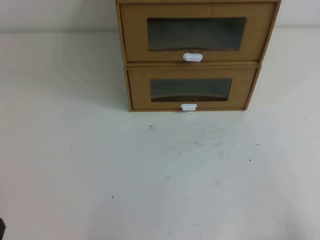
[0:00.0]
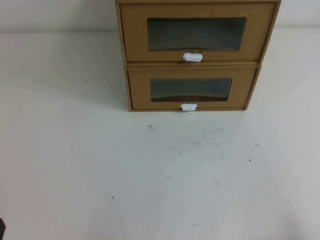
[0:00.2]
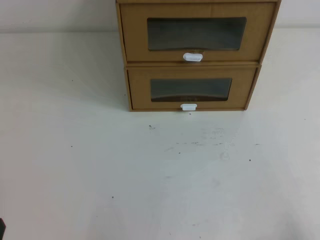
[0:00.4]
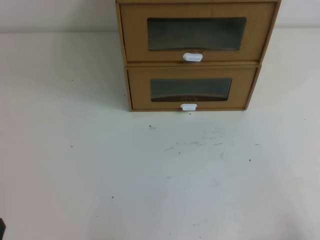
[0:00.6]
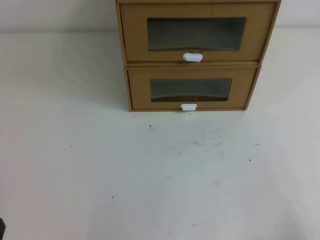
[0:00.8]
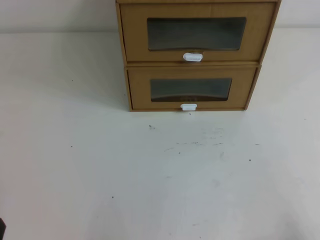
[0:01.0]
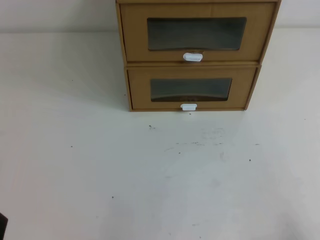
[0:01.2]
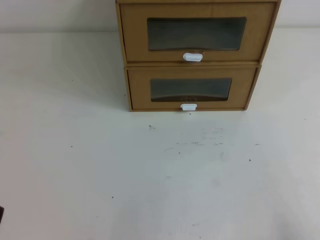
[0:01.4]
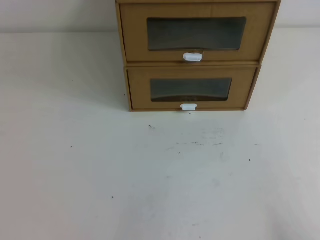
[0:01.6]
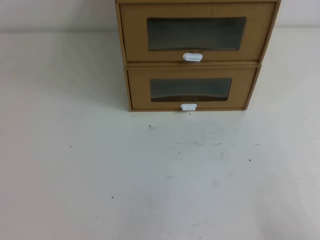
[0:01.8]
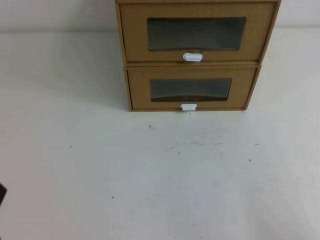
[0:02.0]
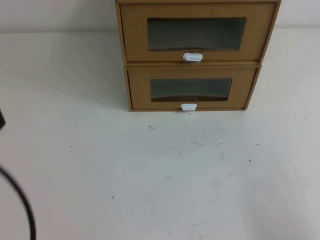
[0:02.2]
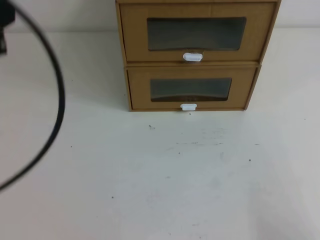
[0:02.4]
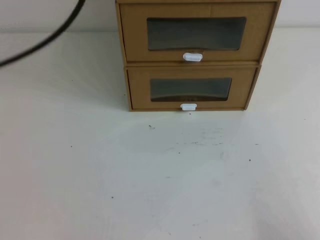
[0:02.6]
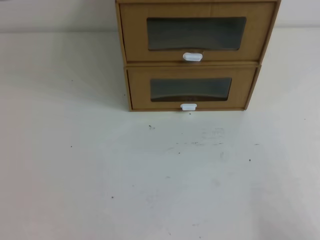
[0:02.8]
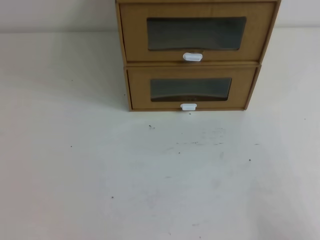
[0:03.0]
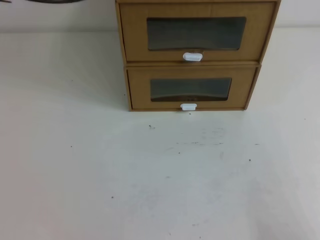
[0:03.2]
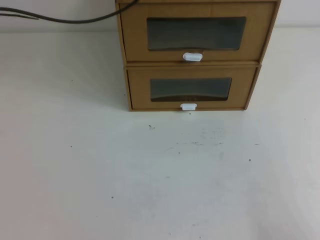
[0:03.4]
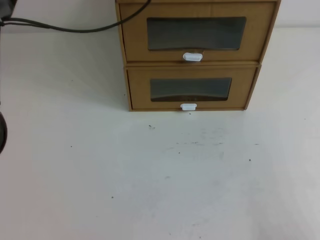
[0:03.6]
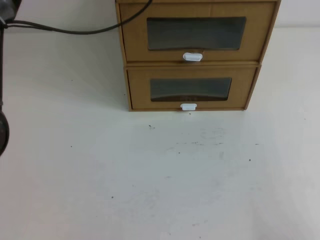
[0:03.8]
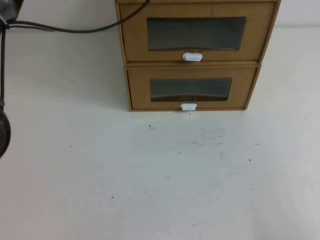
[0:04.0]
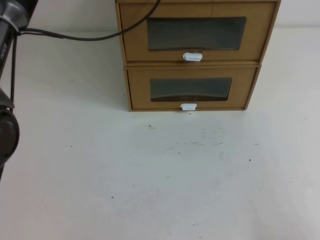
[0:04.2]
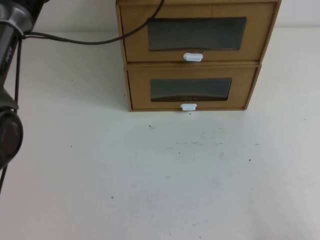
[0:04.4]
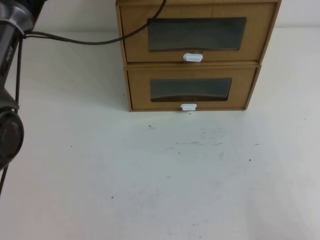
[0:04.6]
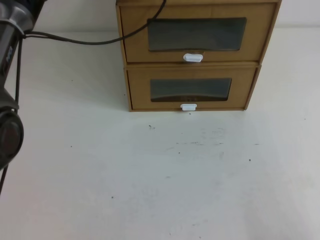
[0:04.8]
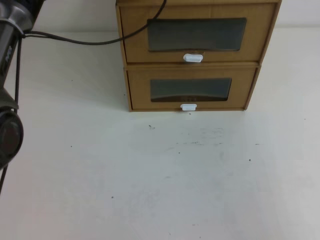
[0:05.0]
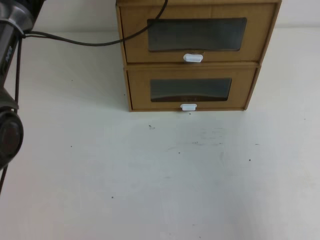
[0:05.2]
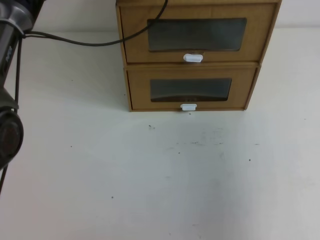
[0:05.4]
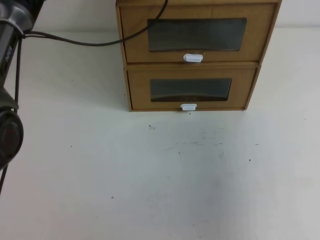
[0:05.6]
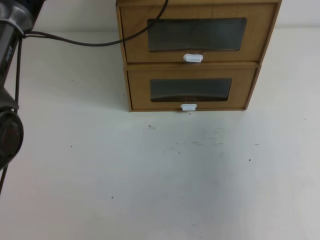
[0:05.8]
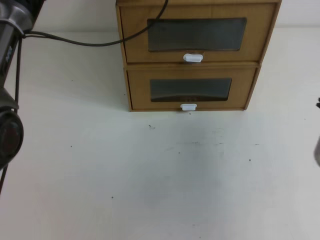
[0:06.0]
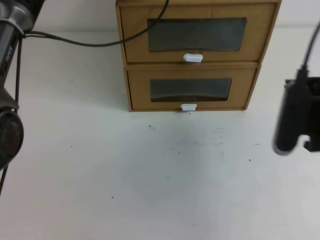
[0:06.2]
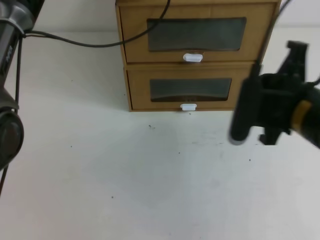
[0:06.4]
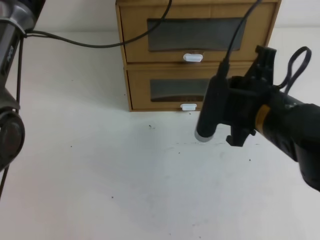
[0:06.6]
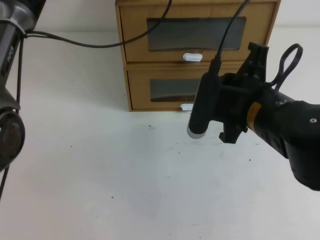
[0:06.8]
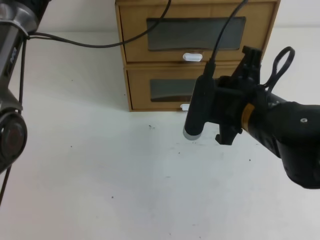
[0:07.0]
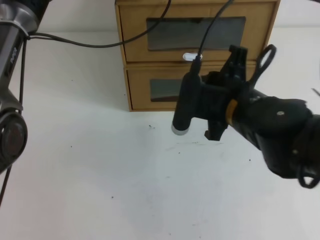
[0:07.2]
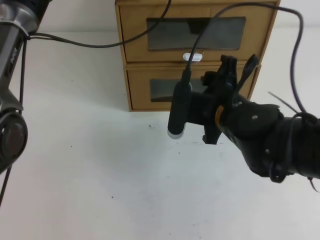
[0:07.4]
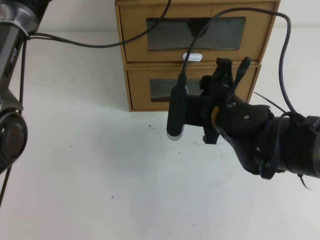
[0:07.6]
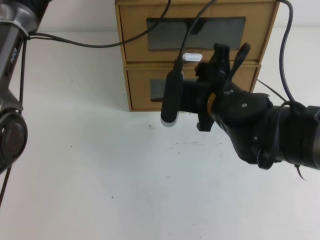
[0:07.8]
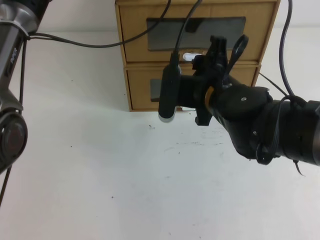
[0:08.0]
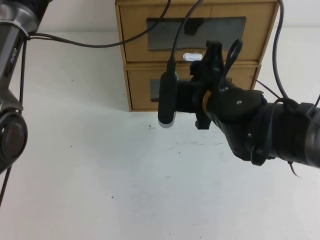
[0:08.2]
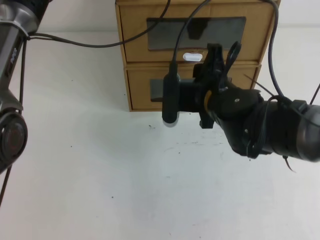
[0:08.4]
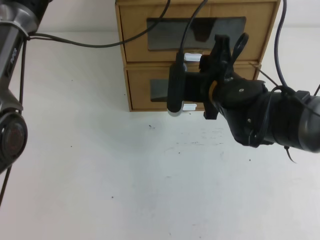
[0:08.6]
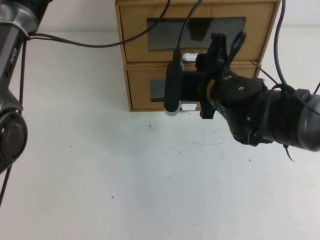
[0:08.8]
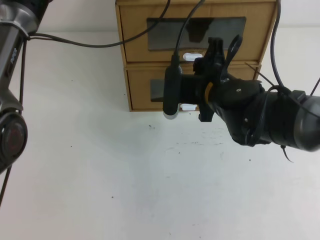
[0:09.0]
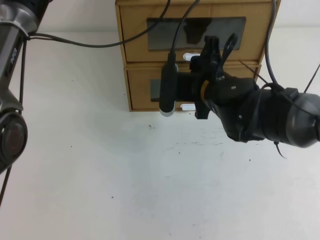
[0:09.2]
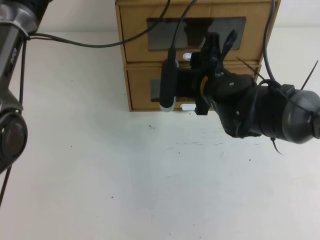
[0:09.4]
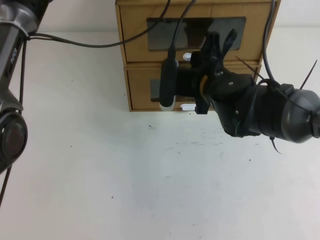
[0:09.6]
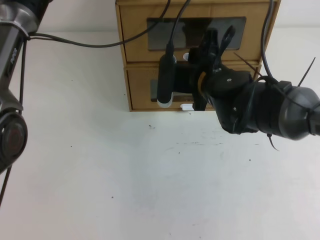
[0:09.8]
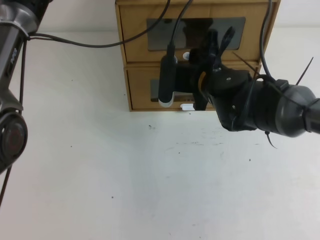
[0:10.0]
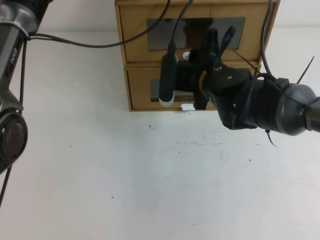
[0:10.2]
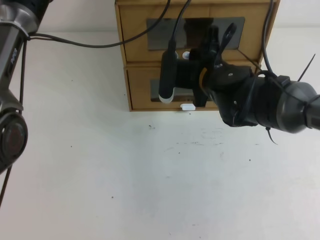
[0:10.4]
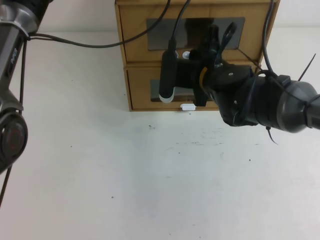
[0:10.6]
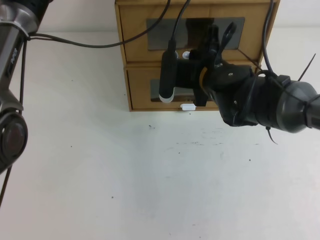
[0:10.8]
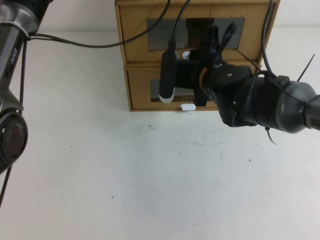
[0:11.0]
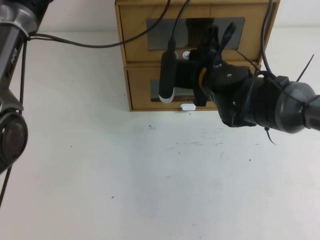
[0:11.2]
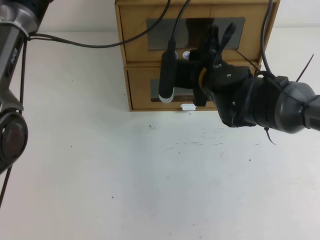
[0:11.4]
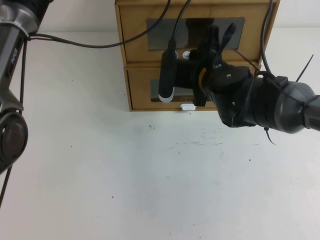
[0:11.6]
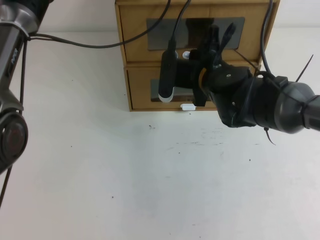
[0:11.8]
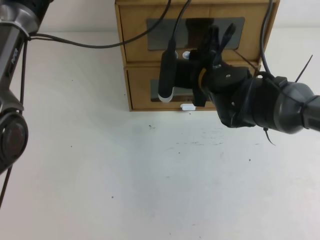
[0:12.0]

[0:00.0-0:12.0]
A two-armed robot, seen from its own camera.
Task of the whole recording: open the shoebox on the table.
0:03.0 to 0:04.4: The left gripper heads downward and forward, covering about 20 cm.
0:04.4 to 0:06.0: The right gripper heads upward and forward, covering roughly 20 cm.
0:06.0 to 0:07.6: The right gripper travels to the left, forward and downward by about 25 cm, and opens.
0:07.6 to 0:09.0: The grippers stay close to where they were, moving slightly.
0:09.0 to 0:10.4: The grippers make only small movements.
0:10.4 to 0:12.0: Both grippers stay put.

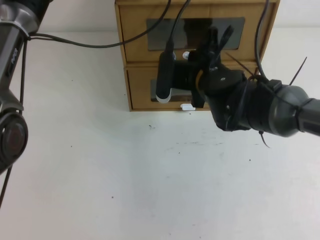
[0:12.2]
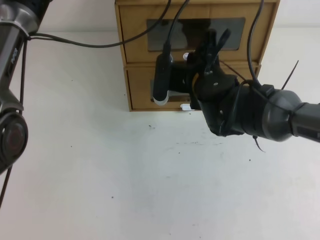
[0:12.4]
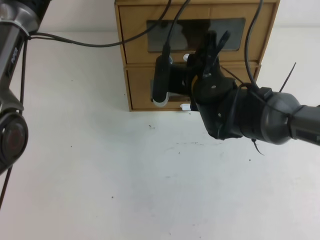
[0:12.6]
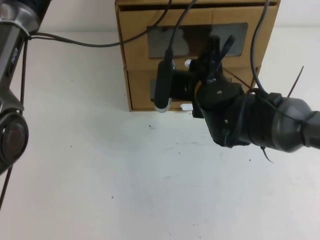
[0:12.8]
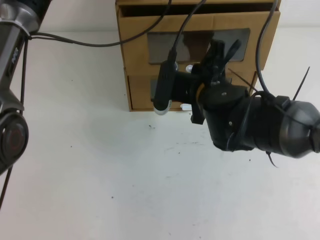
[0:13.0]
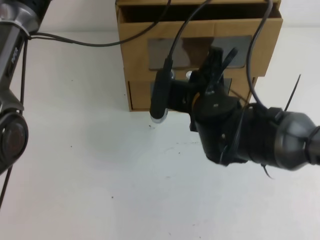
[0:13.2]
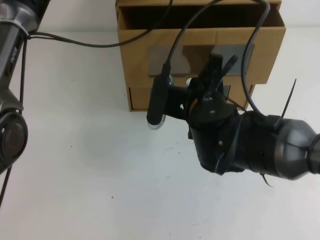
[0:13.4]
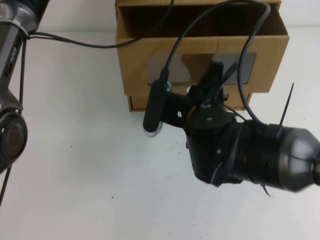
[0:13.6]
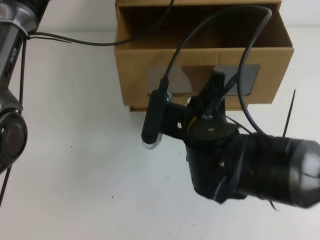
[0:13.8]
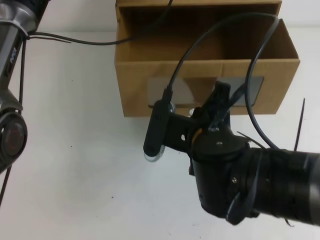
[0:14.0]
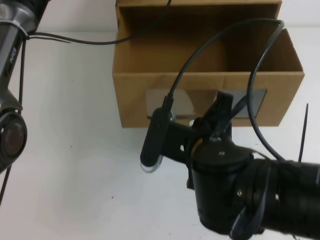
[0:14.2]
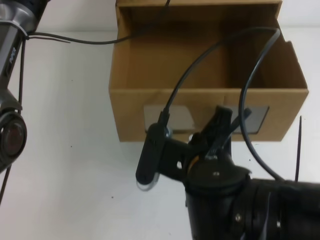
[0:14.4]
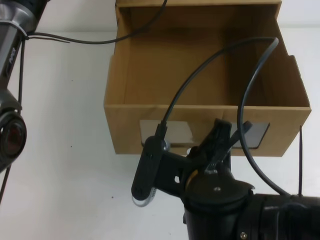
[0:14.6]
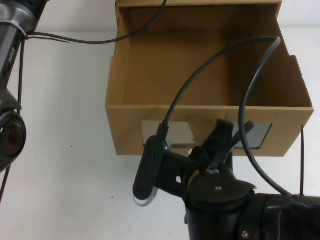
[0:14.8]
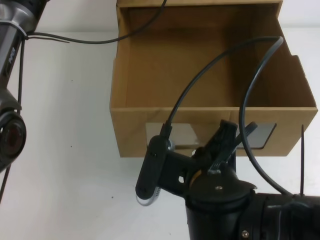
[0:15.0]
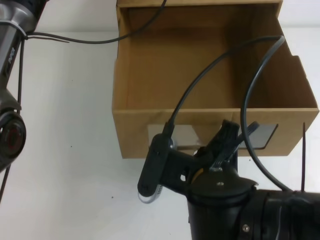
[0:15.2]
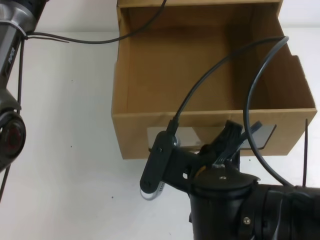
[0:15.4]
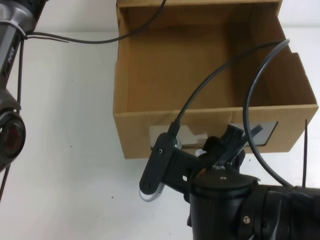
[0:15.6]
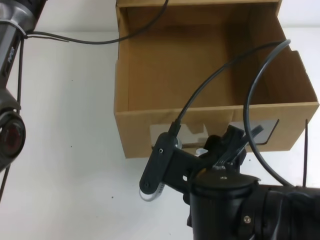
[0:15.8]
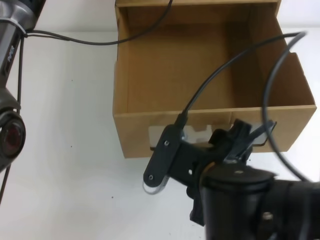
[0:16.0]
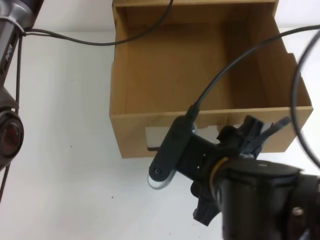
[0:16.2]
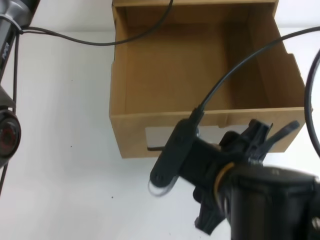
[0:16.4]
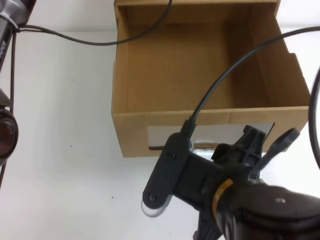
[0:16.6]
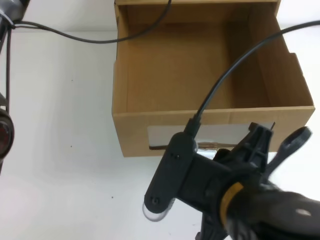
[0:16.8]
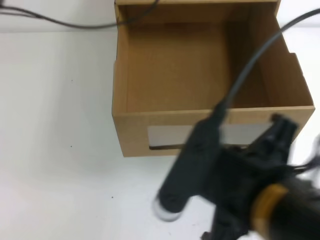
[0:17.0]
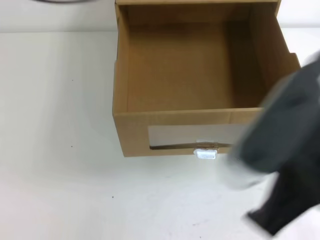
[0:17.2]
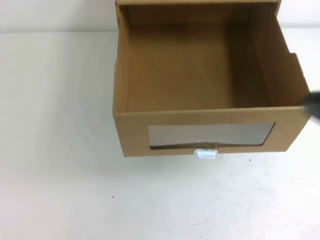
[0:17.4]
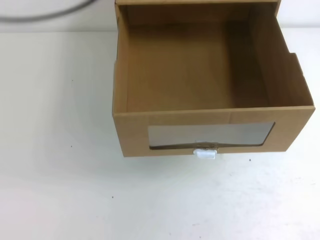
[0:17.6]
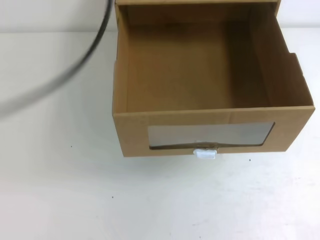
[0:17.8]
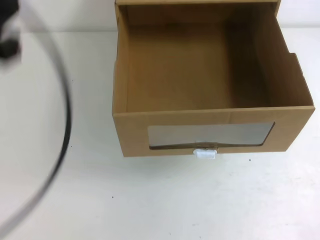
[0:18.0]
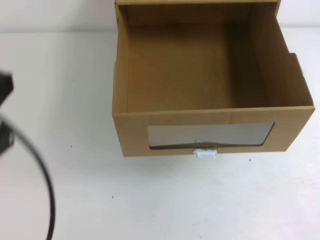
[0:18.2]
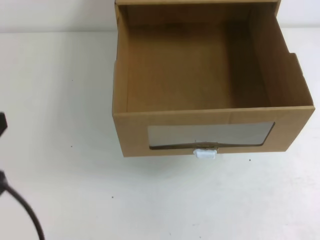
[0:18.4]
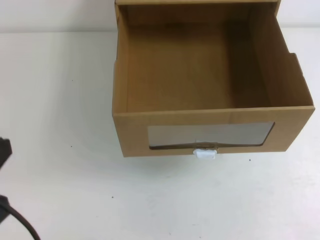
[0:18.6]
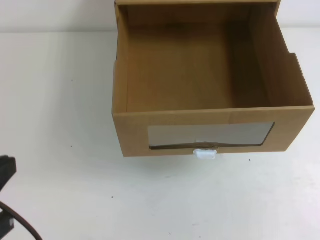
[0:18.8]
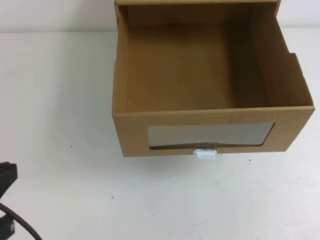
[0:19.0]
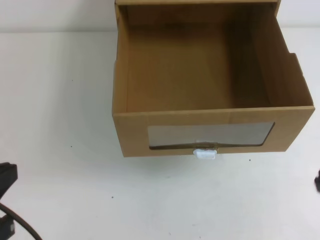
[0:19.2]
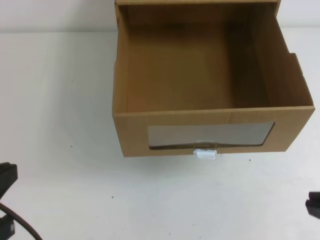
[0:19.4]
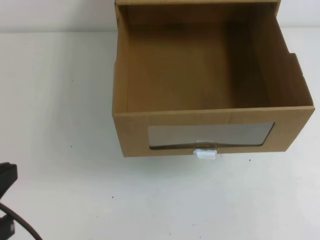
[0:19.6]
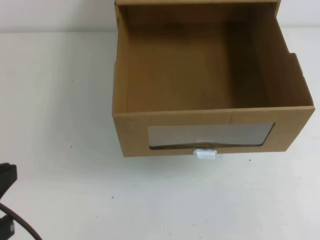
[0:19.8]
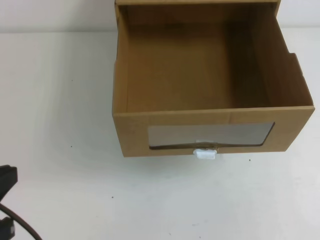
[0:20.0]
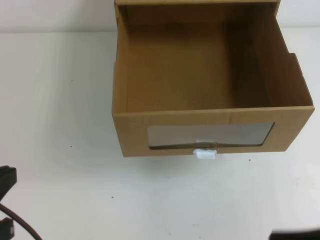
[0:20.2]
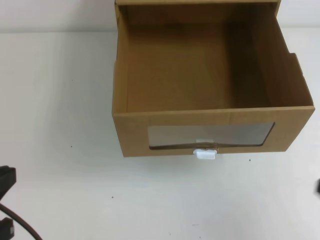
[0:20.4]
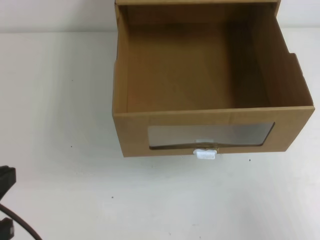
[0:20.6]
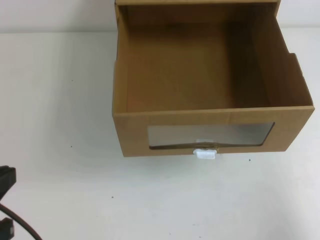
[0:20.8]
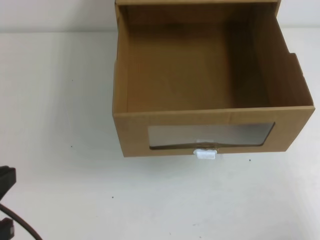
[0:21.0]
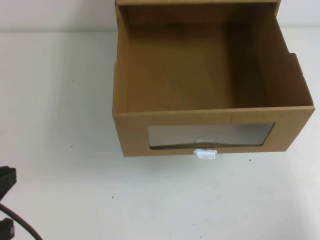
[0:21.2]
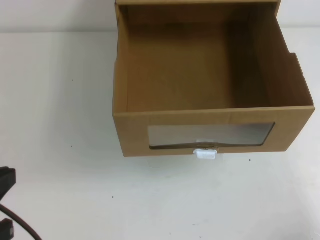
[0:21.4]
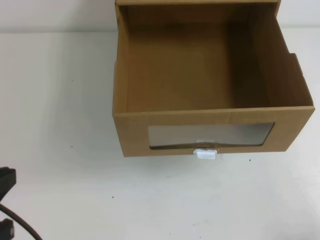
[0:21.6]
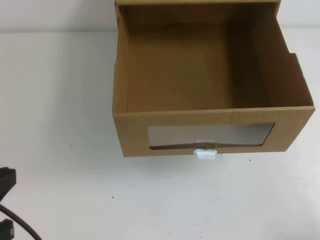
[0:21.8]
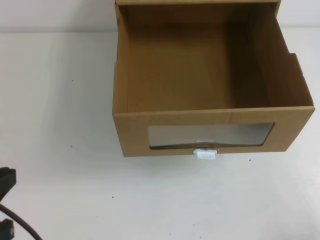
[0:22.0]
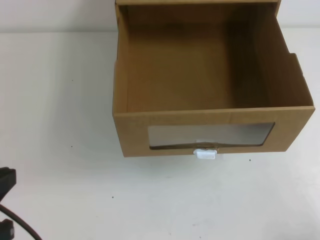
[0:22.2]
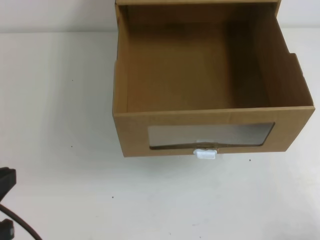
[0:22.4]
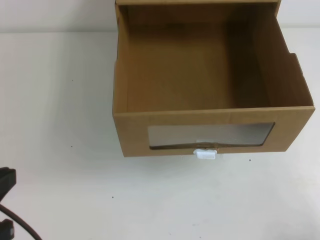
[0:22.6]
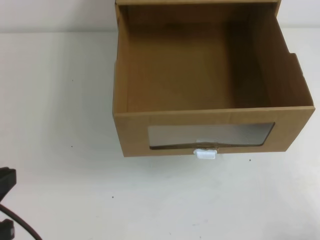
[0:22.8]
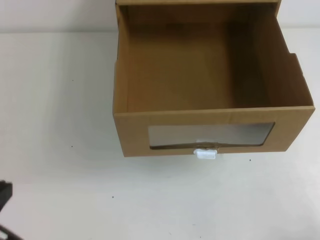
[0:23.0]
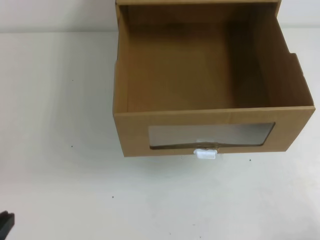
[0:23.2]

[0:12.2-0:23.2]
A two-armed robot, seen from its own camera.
Task of the whole recording: open the shoebox on the table.
0:12.2 to 0:13.8: The right gripper is displaced backward by roughly 10 cm.
0:13.8 to 0:15.4: The right gripper goes approximately 10 cm backward.
0:15.4 to 0:17.0: Both grippers move upward and backward, roughly 10 cm. The left gripper opens, then closes again; the right gripper opens and closes again.
0:17.0 to 0:18.4: The right gripper heads to the right, covering approximately 15 cm; the left gripper travels backward by approximately 35 cm.
0:18.4 to 0:20.0: The right gripper travels downward by roughly 10 cm.
0:20.0 to 0:21.6: The right gripper shifts about 20 cm downward and to the right.
0:21.6 to 0:23.2: The left gripper goes approximately 5 cm downward.
